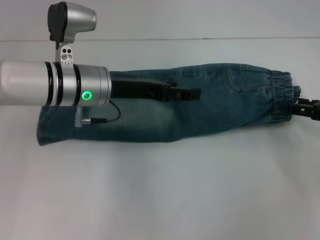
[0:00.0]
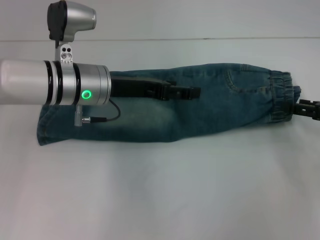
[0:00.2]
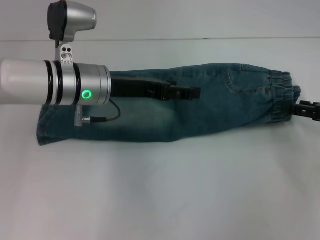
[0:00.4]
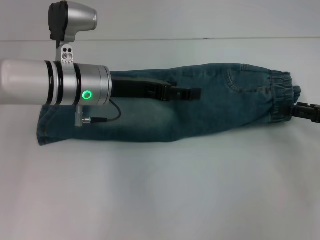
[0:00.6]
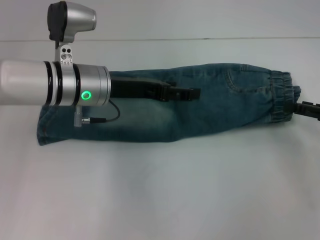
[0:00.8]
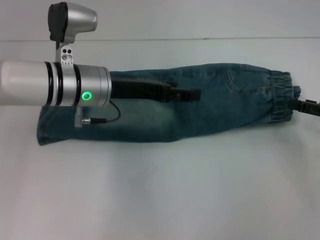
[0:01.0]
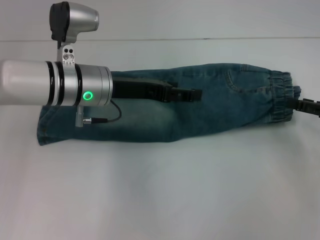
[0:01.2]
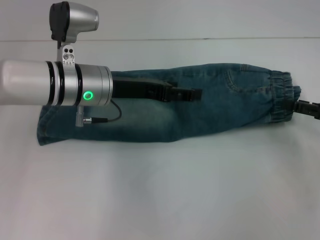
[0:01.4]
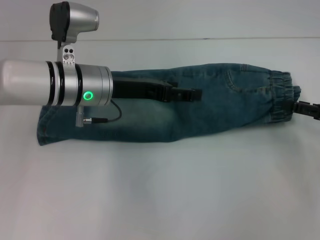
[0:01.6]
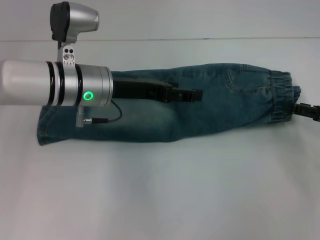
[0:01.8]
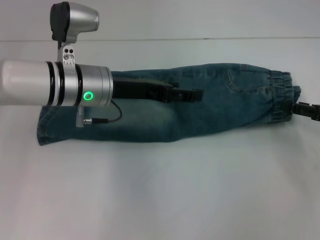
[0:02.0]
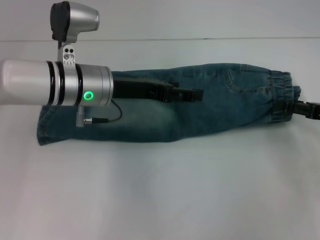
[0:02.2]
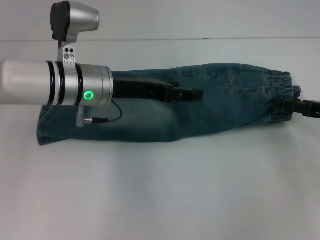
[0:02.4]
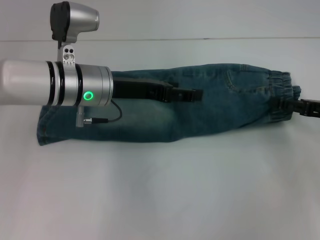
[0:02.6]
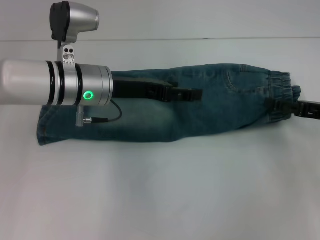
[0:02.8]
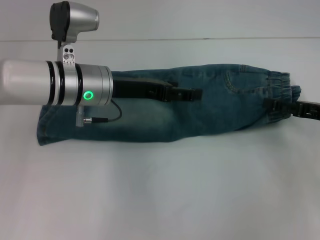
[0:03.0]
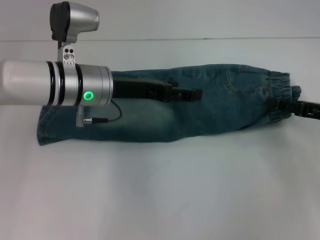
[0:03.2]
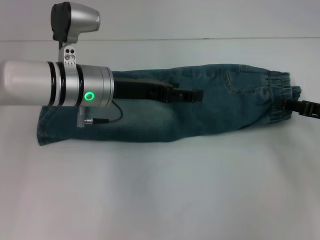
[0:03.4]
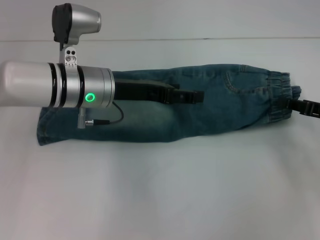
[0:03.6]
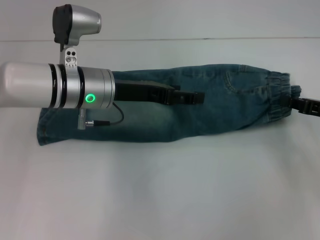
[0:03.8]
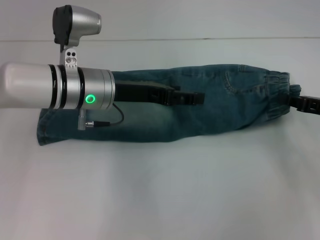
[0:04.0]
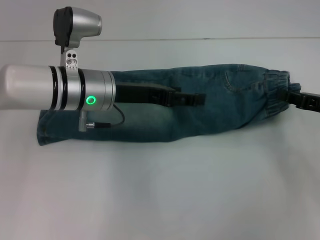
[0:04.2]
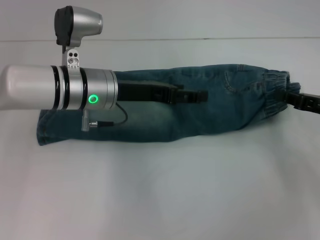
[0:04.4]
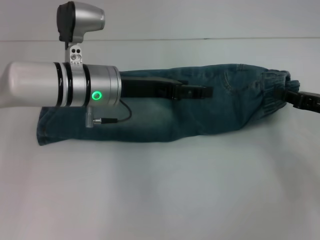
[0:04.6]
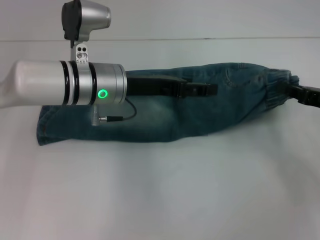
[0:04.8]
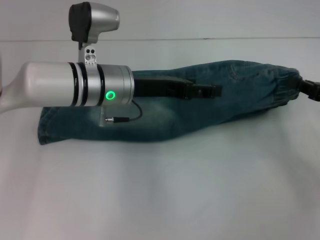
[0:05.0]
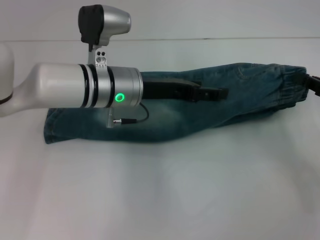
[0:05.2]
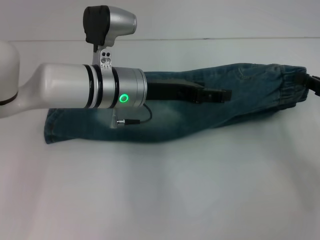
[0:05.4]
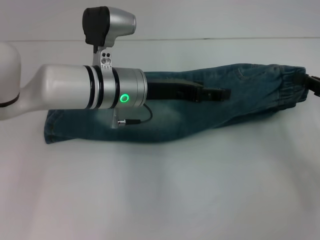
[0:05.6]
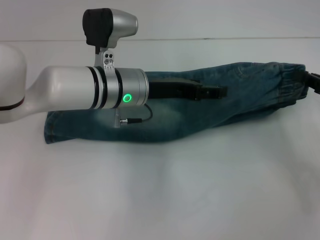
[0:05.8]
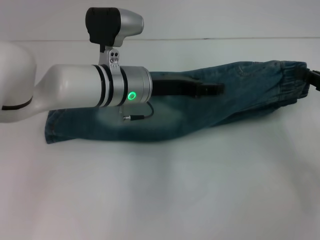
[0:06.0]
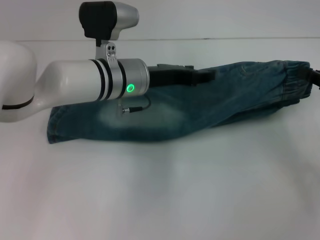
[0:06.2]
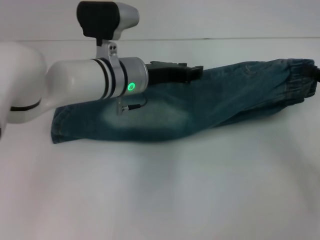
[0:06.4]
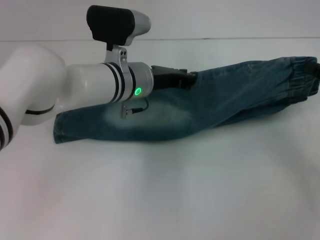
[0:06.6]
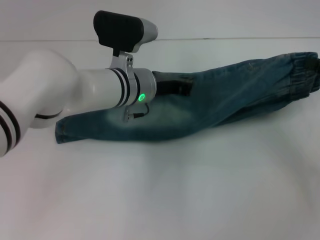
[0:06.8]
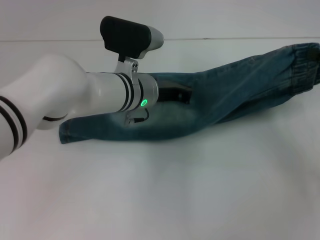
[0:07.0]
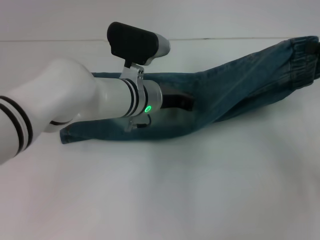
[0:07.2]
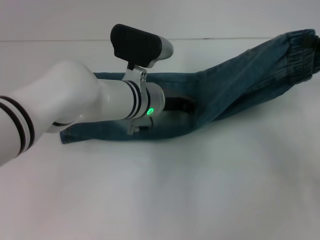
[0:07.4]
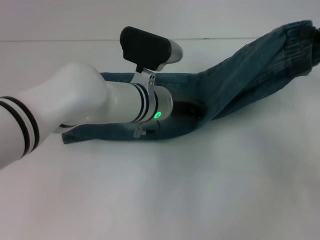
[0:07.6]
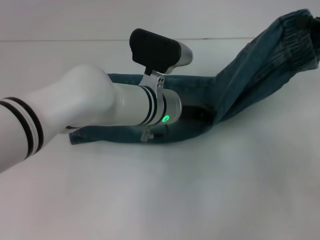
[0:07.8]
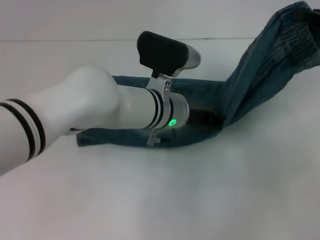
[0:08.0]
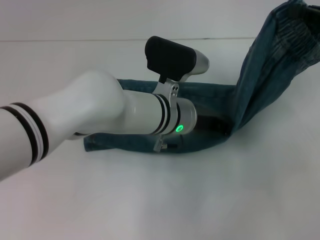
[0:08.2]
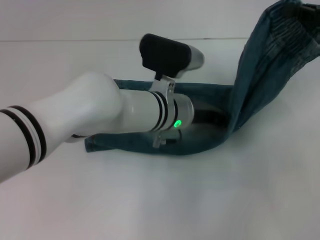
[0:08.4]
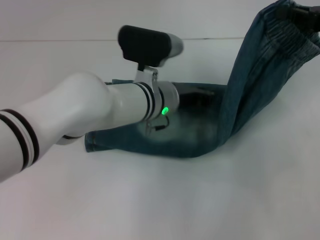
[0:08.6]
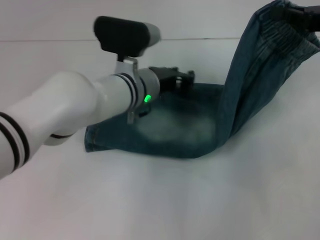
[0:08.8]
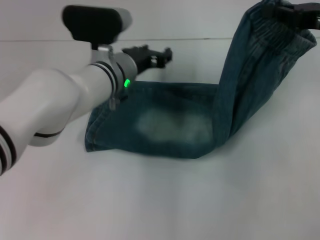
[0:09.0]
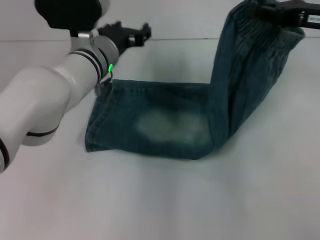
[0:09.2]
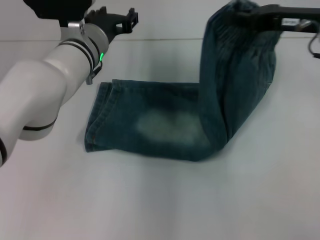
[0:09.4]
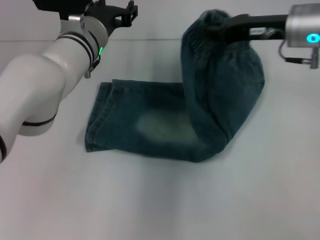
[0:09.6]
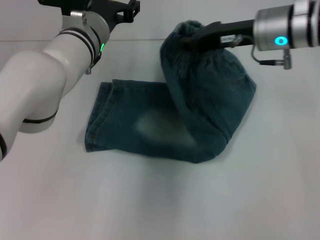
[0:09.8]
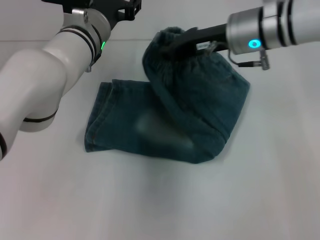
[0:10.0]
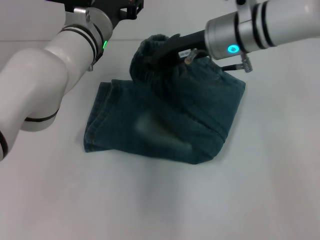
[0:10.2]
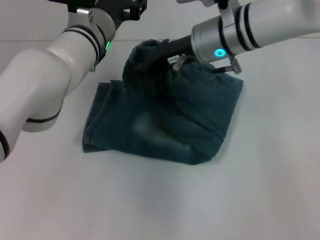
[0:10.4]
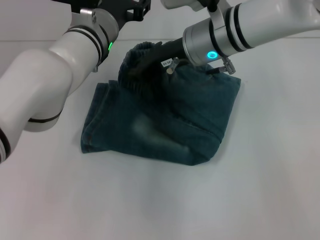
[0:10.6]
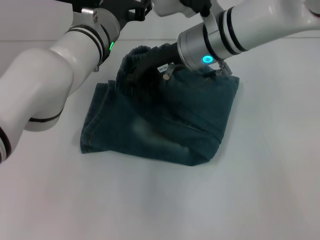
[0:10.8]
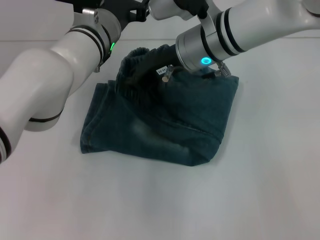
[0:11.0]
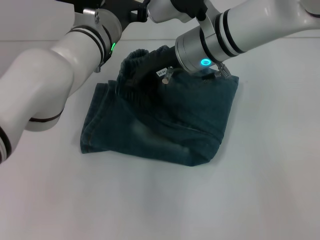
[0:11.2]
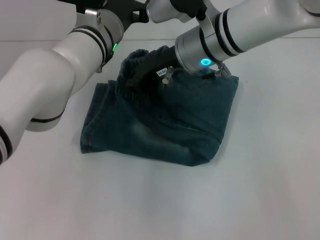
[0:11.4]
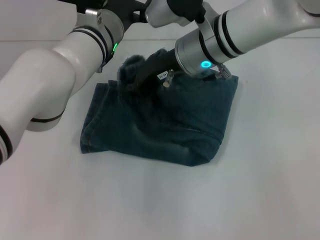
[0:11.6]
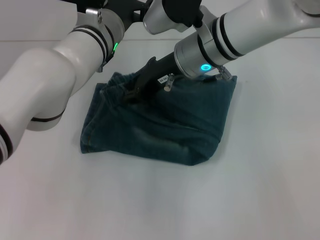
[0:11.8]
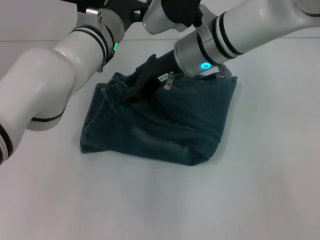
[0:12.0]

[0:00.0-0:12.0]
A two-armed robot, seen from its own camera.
Step, 0:00.0 to 0:03.6: Grab the waistband with your right hand.
Step, 0:03.8 to 0:08.2: Press the middle of the pants with your left hand.
0:00.0 to 0:01.6: The grippers make only small movements.
0:03.0 to 0:04.4: The right gripper closes up.
0:04.4 to 0:06.0: The left gripper moves some 5 cm.
0:06.0 to 0:07.6: The left gripper moves roughly 5 cm, and closes; the right gripper heads upward, covering about 5 cm.
0:07.6 to 0:09.0: The right gripper ends up roughly 5 cm from where it was; the left gripper ends up roughly 5 cm from where it was, and opens up.
0:09.0 to 0:10.4: The right gripper shifts approximately 20 cm to the left; the left gripper shifts by about 5 cm.
0:10.4 to 0:12.0: The right gripper opens.

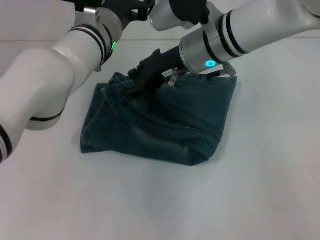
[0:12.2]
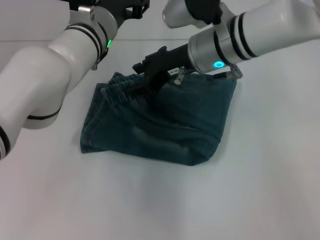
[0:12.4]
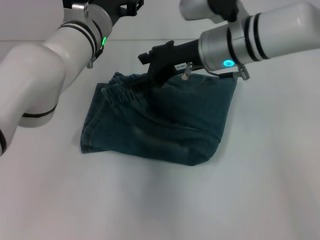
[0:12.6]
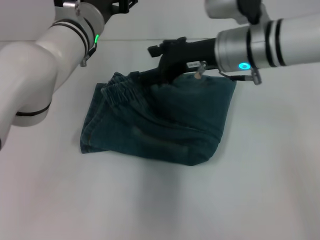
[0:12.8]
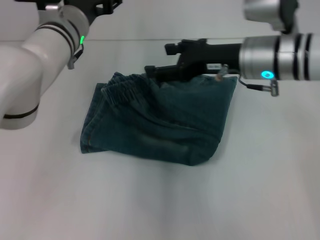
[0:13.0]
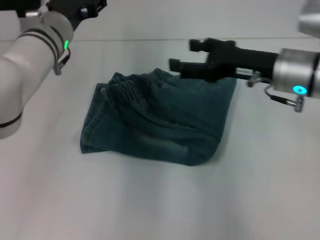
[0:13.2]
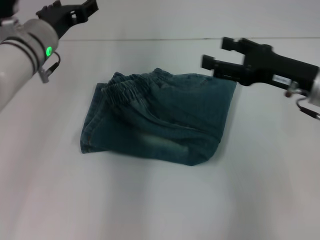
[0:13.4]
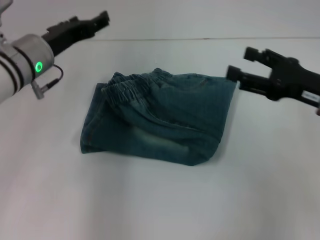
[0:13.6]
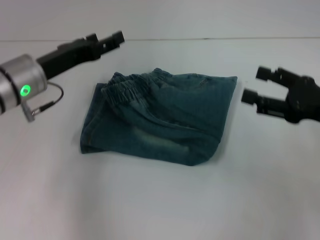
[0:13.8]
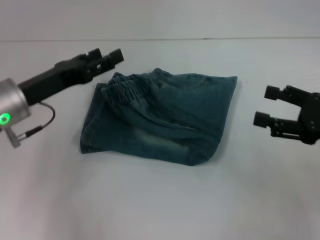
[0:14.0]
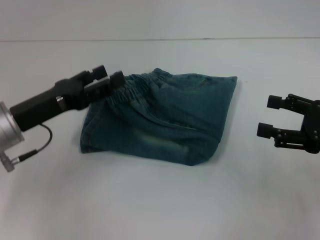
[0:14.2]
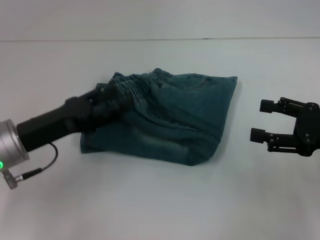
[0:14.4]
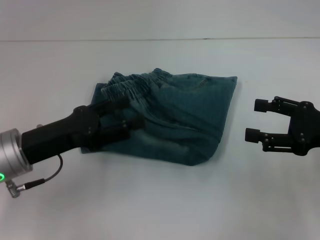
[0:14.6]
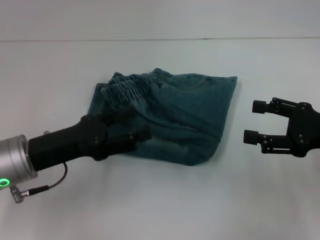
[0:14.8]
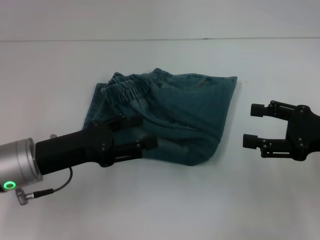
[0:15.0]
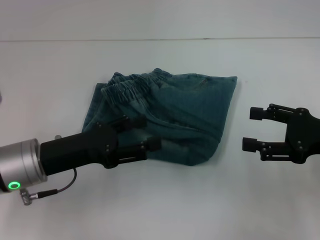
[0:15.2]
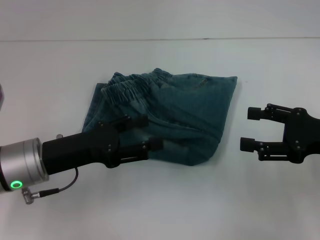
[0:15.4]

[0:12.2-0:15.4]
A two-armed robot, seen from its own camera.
0:12.2 to 0:13.8: The right gripper is displaced to the right and backward by about 25 cm, and opens its fingers. Meanwhile the left gripper moves to the left and backward, some 15 cm.
0:13.8 to 0:15.4: The left gripper shifts roughly 10 cm backward.
